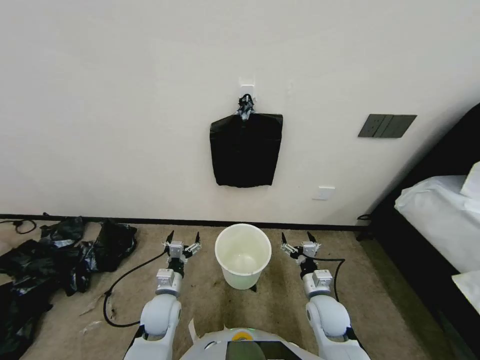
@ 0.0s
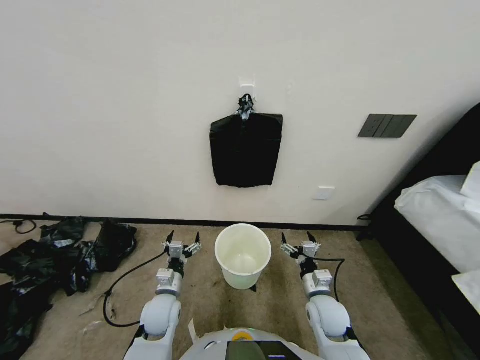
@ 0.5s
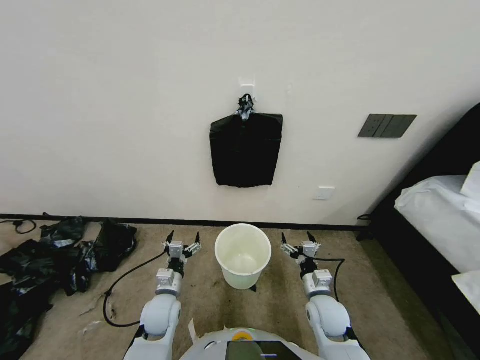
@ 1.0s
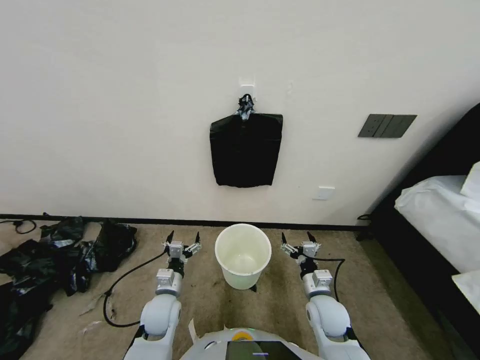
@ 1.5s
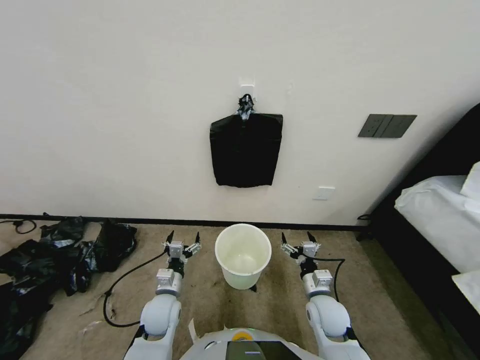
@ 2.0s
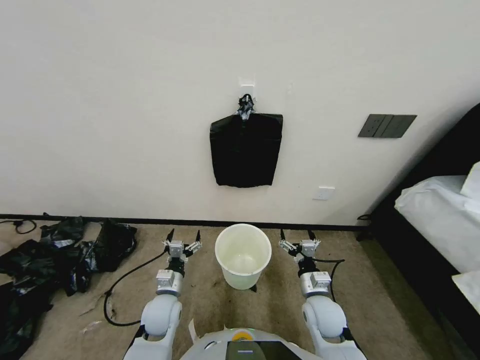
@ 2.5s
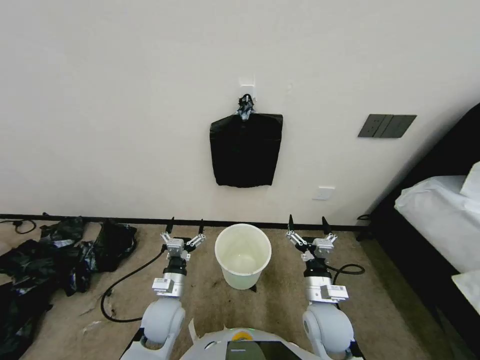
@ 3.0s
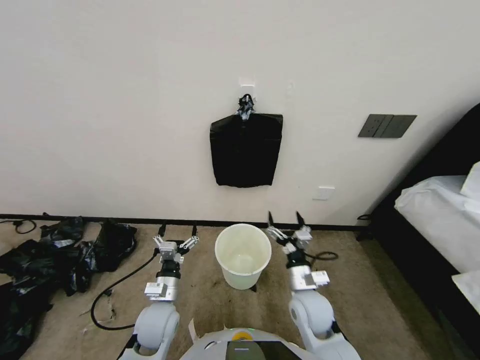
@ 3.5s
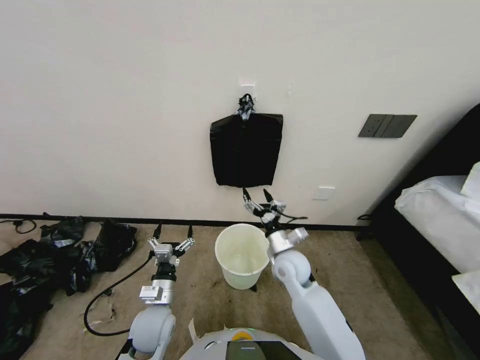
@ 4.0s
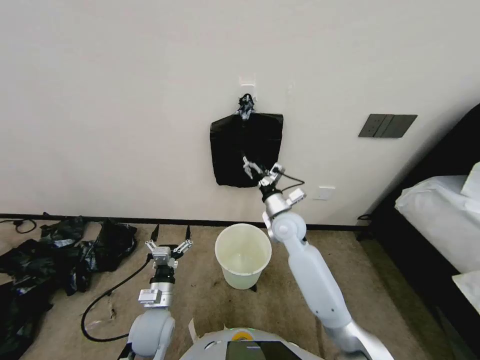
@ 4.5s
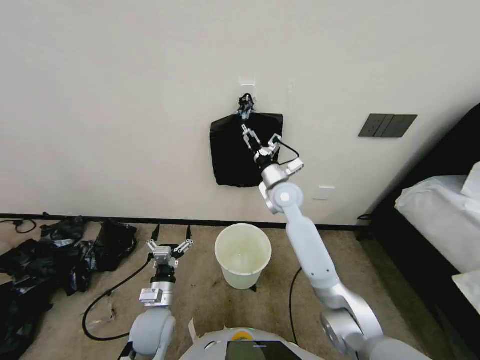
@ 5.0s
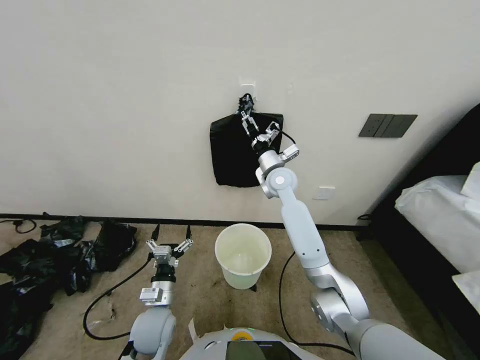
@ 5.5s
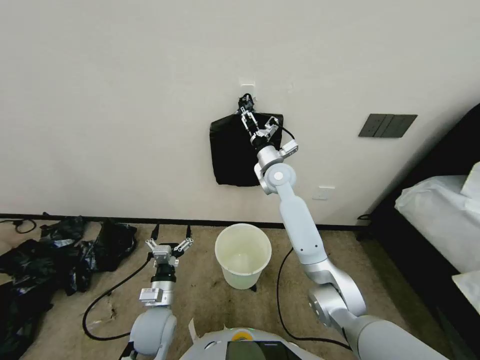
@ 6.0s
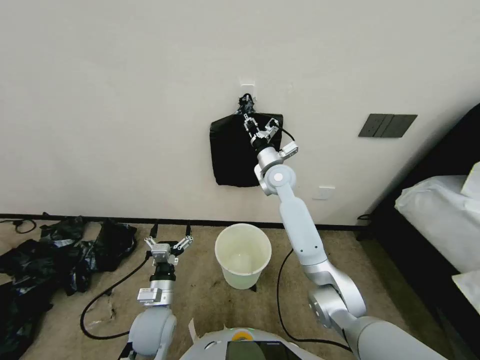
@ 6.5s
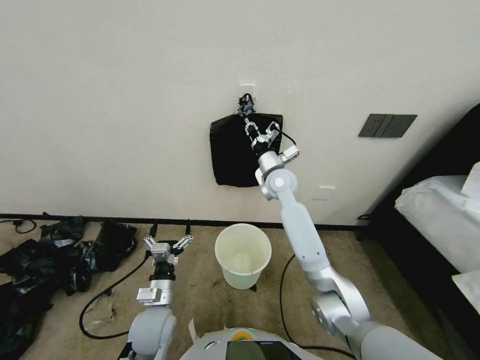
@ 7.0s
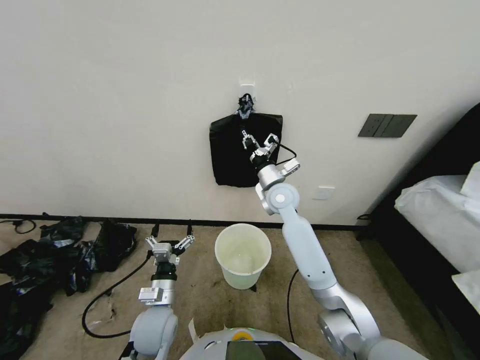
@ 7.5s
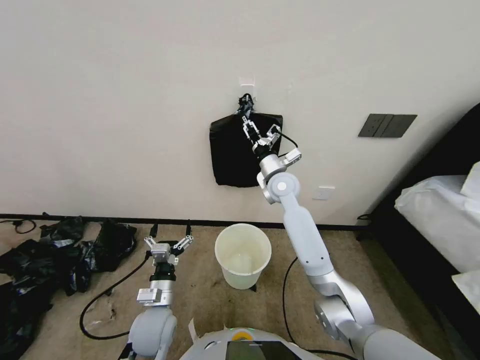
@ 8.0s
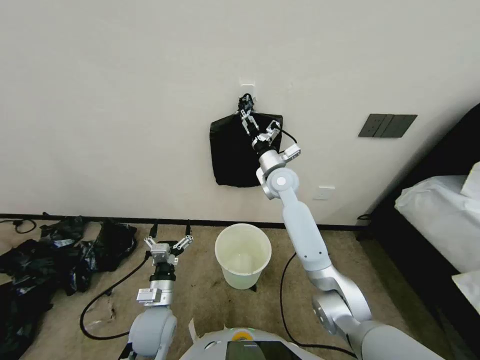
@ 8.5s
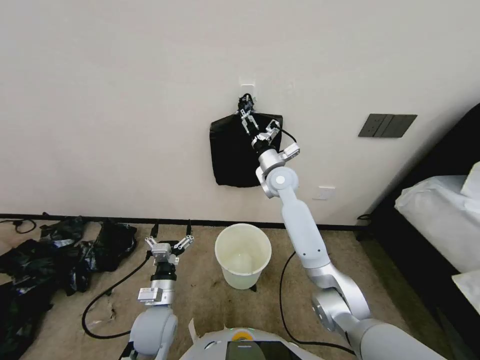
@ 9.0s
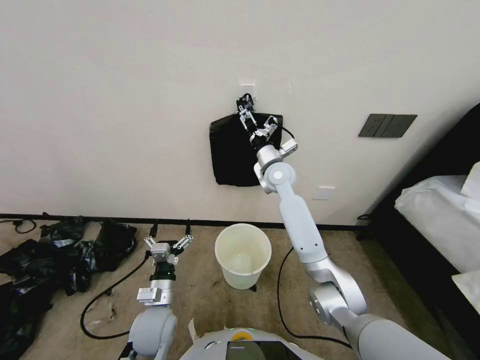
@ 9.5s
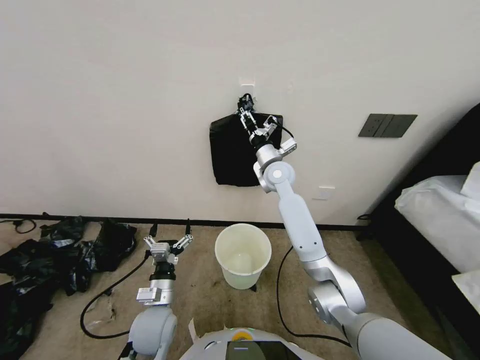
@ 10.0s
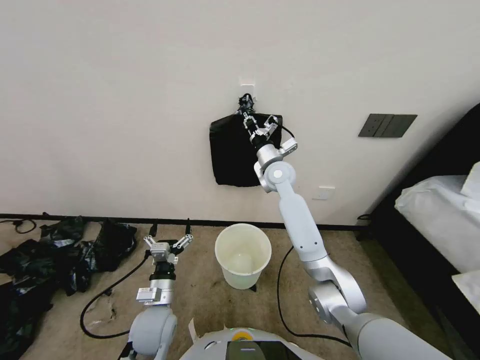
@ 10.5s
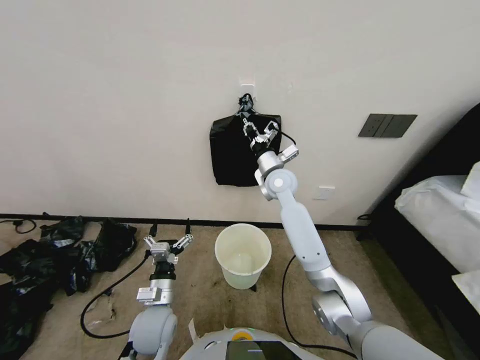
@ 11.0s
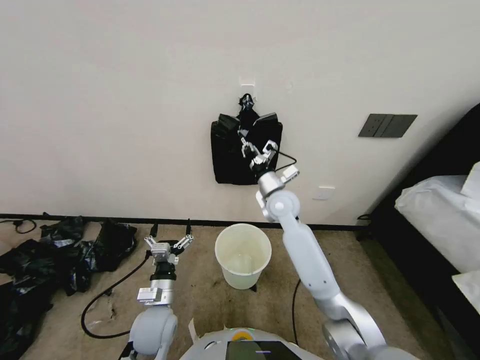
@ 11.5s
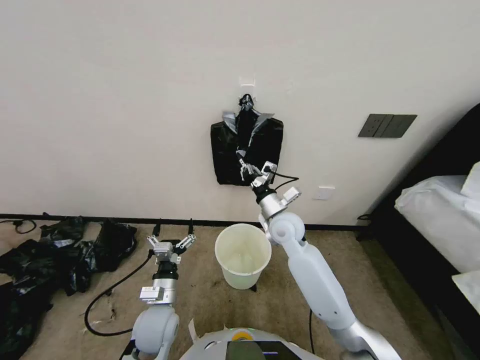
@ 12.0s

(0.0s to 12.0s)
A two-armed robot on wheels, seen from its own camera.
Task of the whole recording: Place a trash bag onto the trash bin.
2.0s - 4.0s: The right gripper moves to the left, forward and upward, some 15 cm.
4.0s - 6.0s: The right gripper heads forward and upward, covering some 25 cm.
6.0s - 8.0s: The right gripper closes its fingers.
8.0s - 10.0s: The right gripper opens and closes again.
10.0s - 12.0s: The right gripper shifts some 15 cm backward and downward, and closes its fingers.

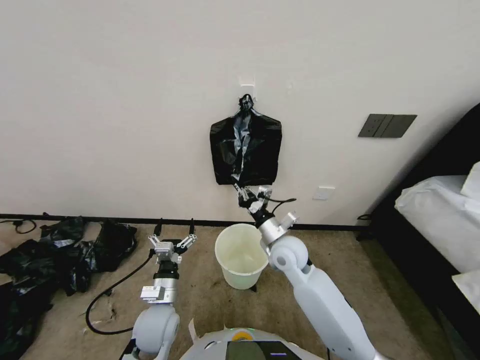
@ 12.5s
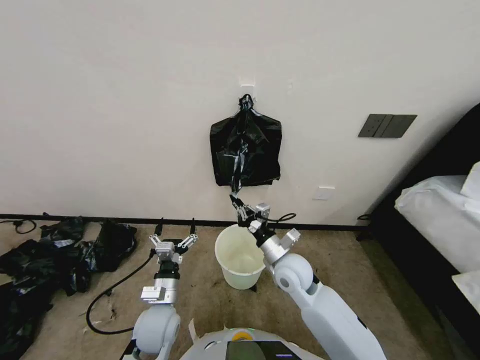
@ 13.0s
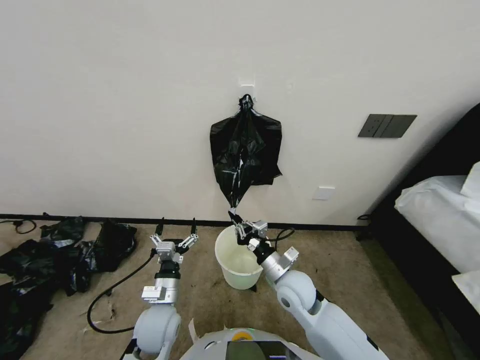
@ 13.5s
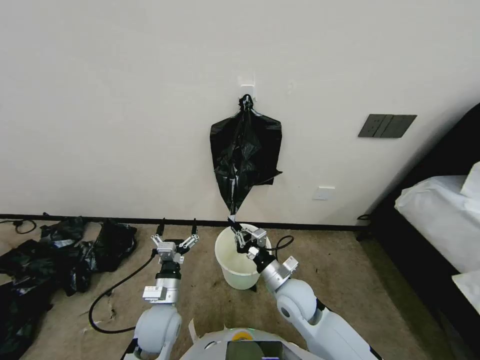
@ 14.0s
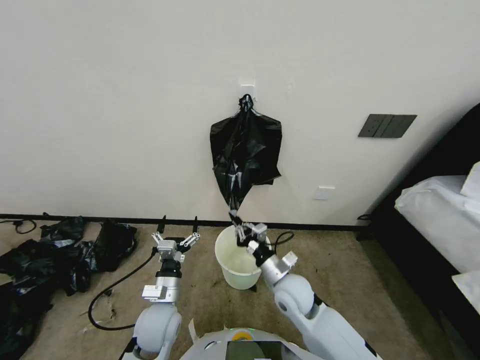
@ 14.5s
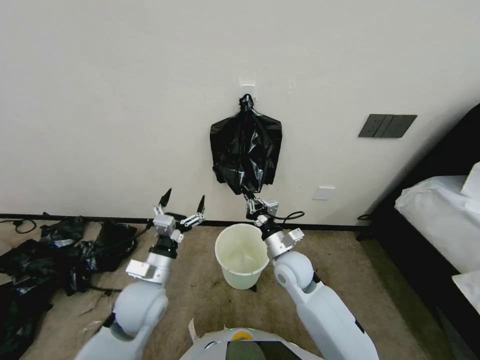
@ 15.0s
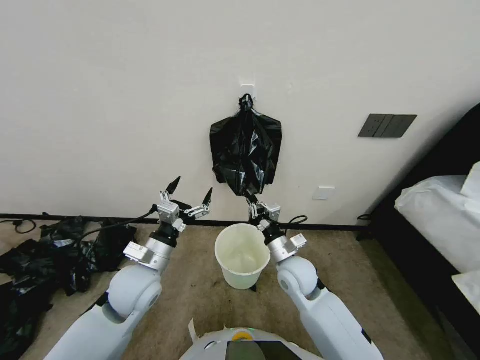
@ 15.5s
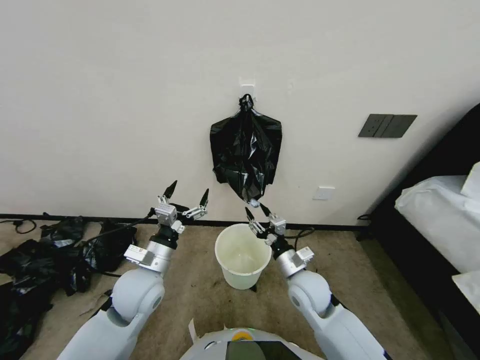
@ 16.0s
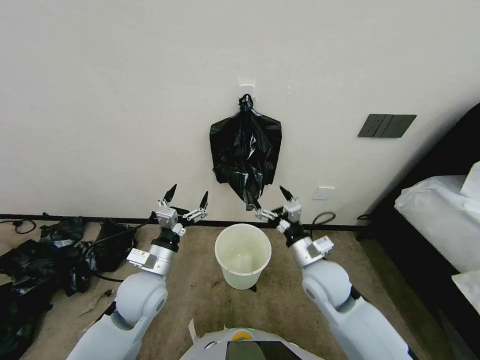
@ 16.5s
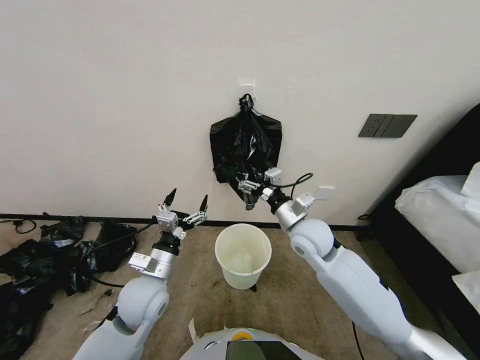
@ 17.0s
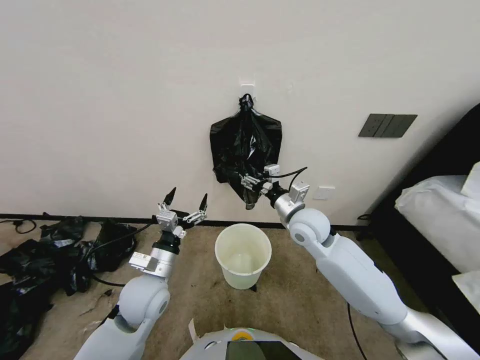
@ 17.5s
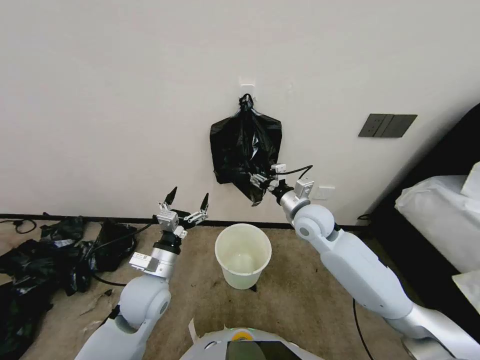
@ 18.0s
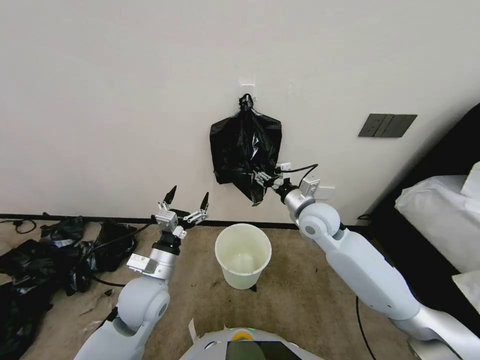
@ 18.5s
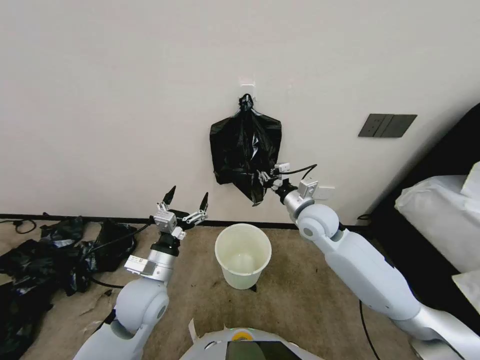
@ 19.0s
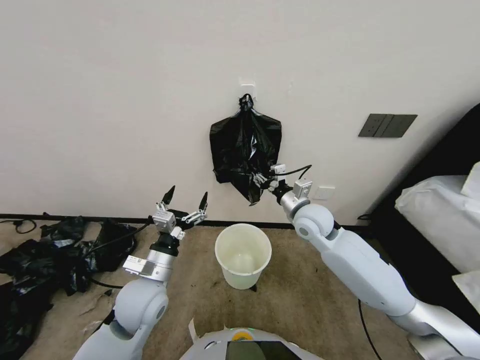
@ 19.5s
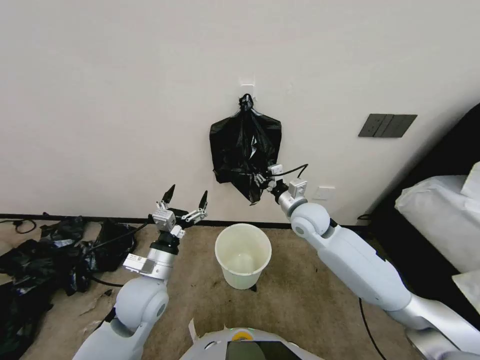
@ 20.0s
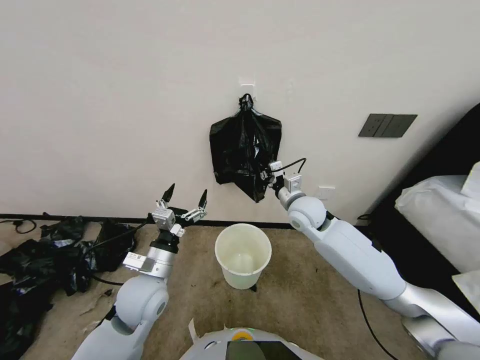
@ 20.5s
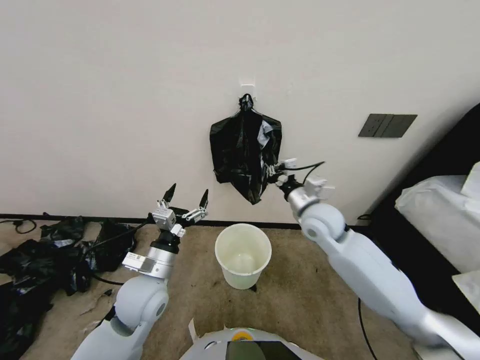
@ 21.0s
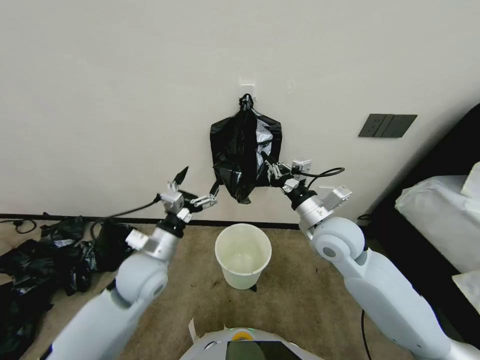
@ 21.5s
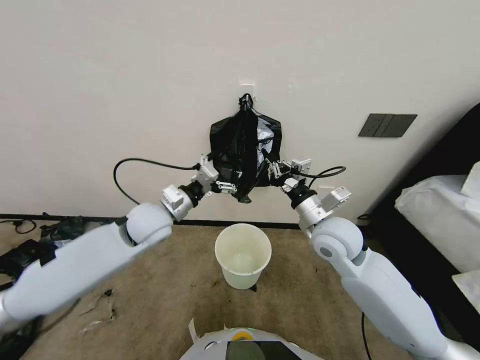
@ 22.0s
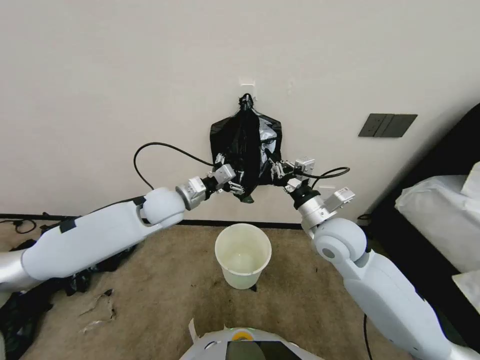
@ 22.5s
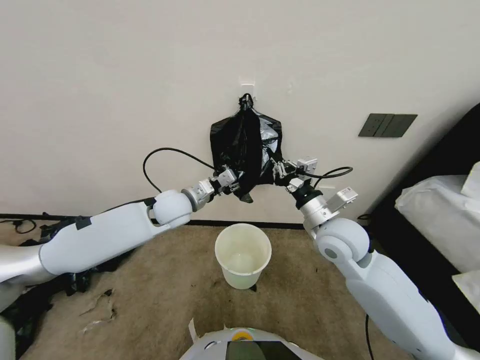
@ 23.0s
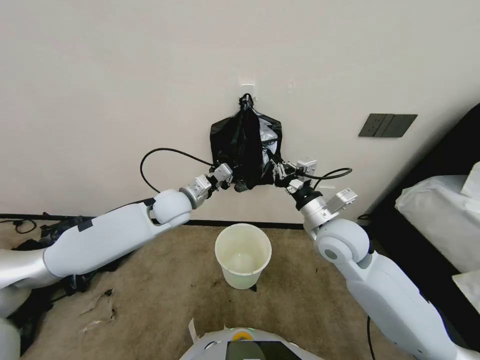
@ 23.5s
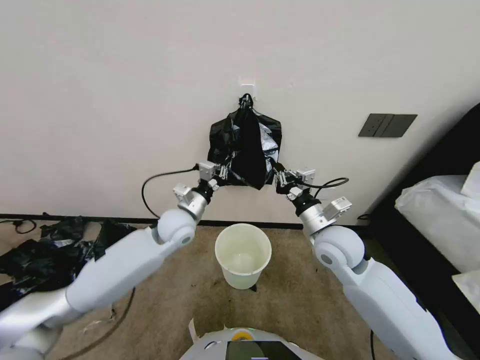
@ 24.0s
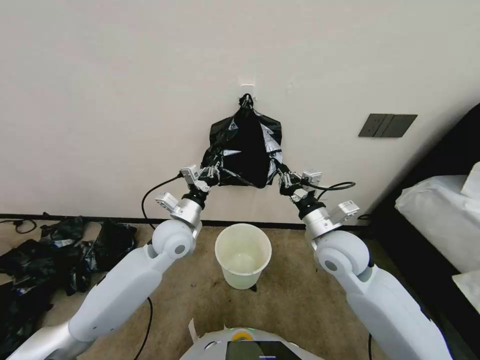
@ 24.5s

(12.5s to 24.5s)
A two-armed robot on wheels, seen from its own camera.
Task of the whole recording: Place a trash bag onto the trash bin.
12.5s - 14.5s: The right gripper shifts some 10 cm backward and downward.
14.5s - 16.5s: The left gripper heads upward, covering some 10 cm, while the right gripper travels to the right by roughly 5 cm, and opens its fingers.
16.5s - 18.5s: The right gripper shifts approximately 15 cm forward and upward.
18.5s - 20.5s: The right gripper closes its fingers.
20.5s - 22.5s: The right gripper moves backward, about 10 cm. Meanwhile the left gripper shifts approximately 20 cm forward and upward.
22.5s - 24.5s: The left gripper goes about 5 cm downward, and closes up.

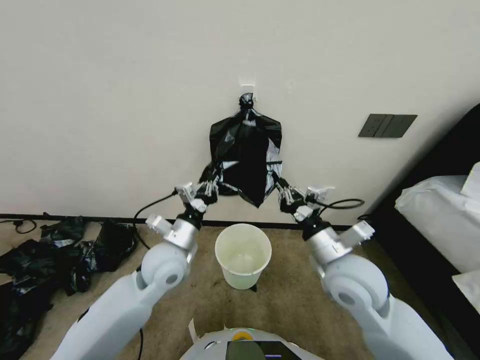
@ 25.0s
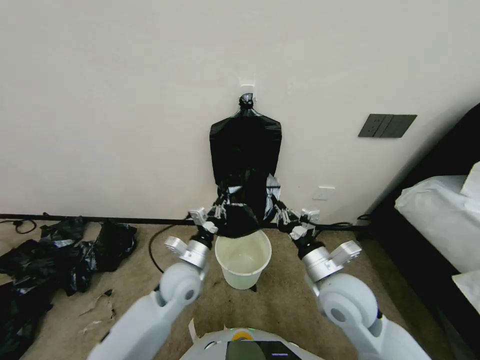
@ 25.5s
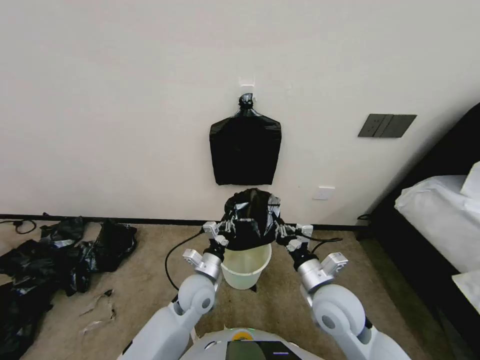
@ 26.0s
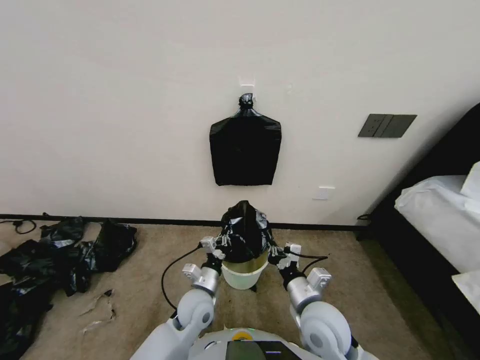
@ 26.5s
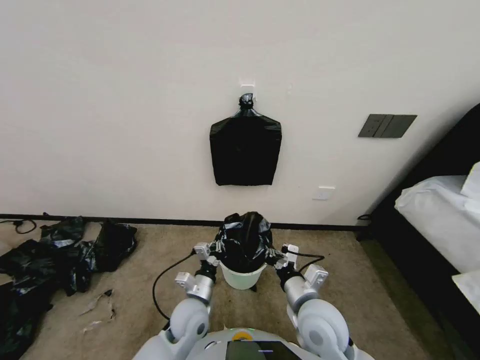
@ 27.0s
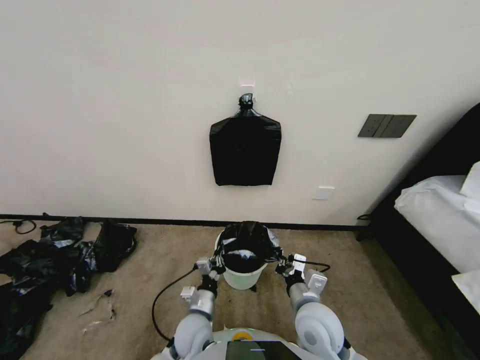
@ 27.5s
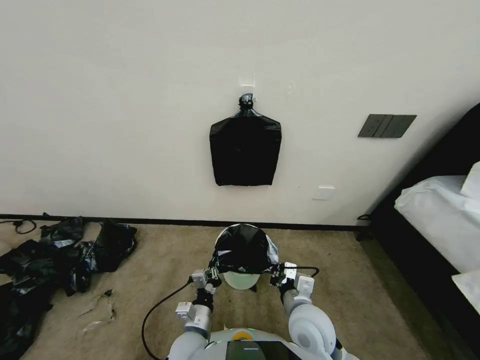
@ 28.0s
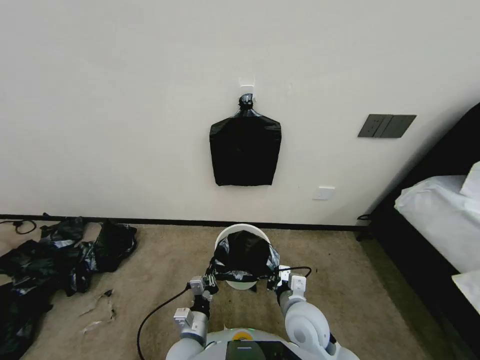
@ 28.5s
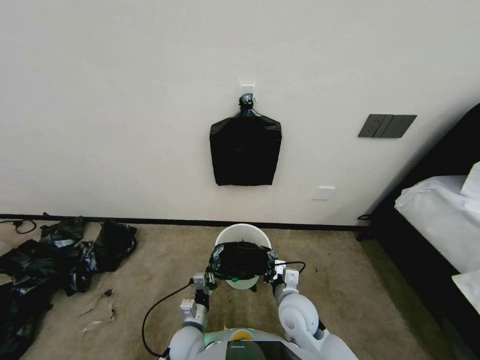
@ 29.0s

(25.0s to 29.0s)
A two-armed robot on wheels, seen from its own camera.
Task of the whole recording: Place a trash bag onto the trash bin.
25.0s - 27.0s: The left gripper heads downward and backward, covering some 20 cm. Meanwhile the right gripper travels downward, backward and to the left by some 15 cm.
27.0s - 29.0s: The left gripper moves downward and backward, approximately 10 cm. Meanwhile the right gripper goes approximately 10 cm downward.
